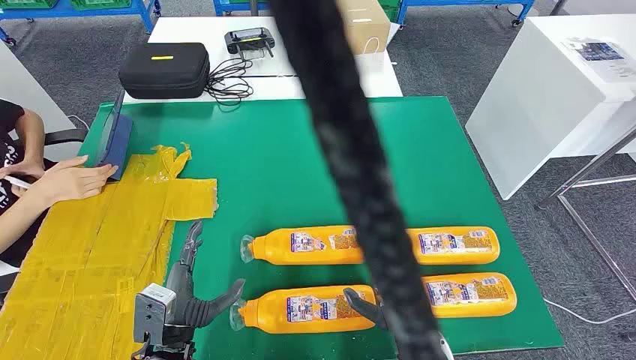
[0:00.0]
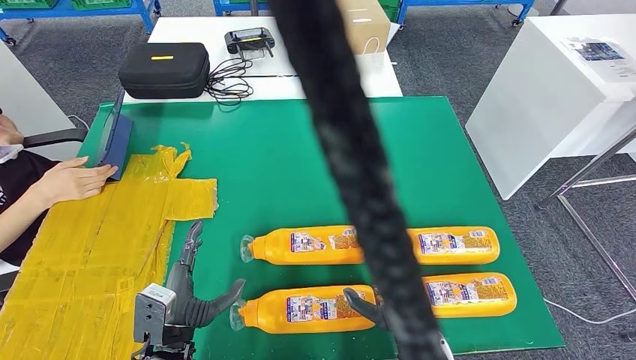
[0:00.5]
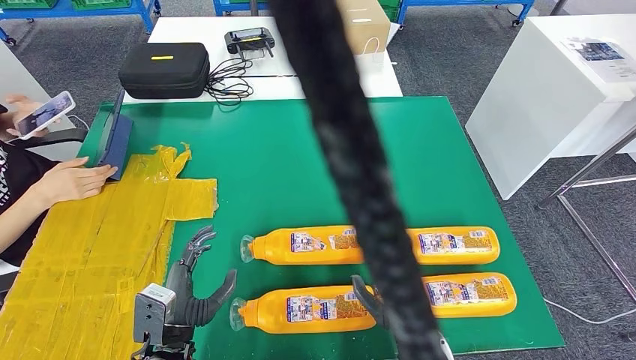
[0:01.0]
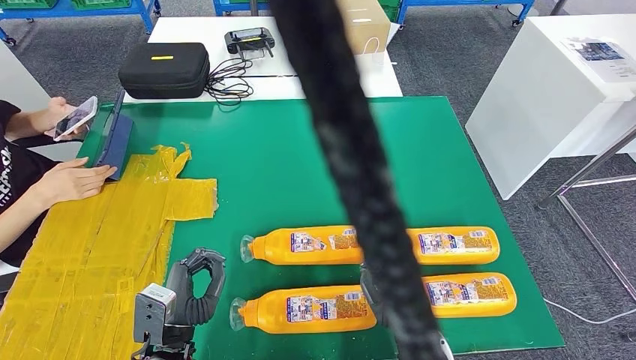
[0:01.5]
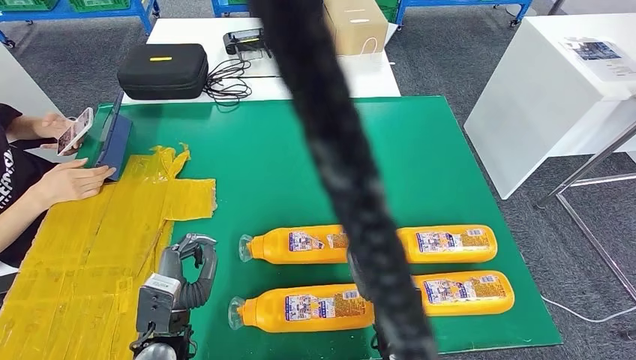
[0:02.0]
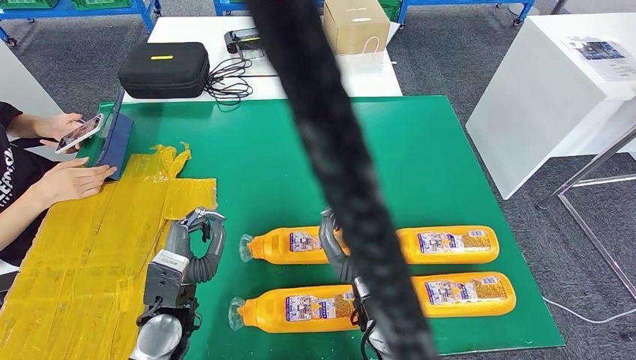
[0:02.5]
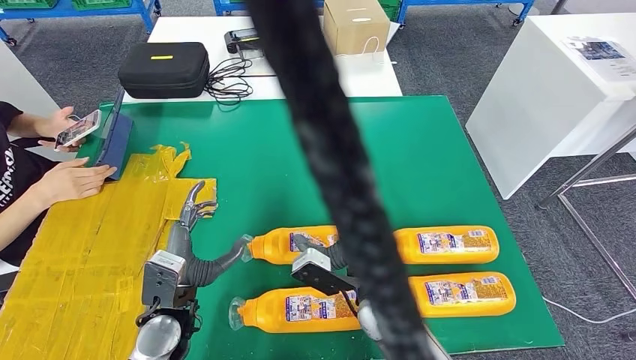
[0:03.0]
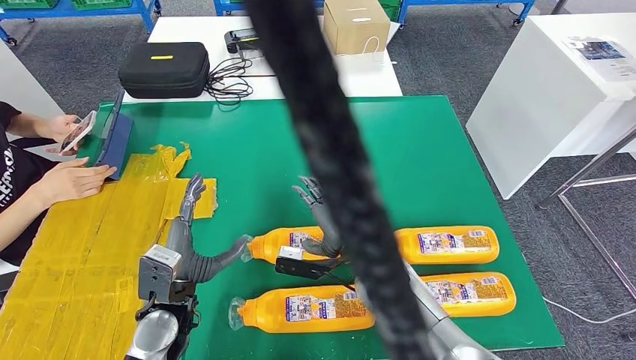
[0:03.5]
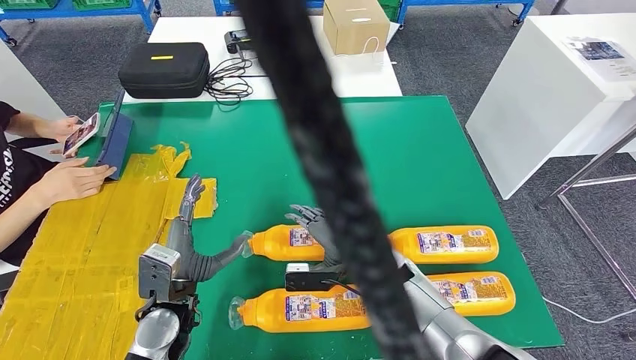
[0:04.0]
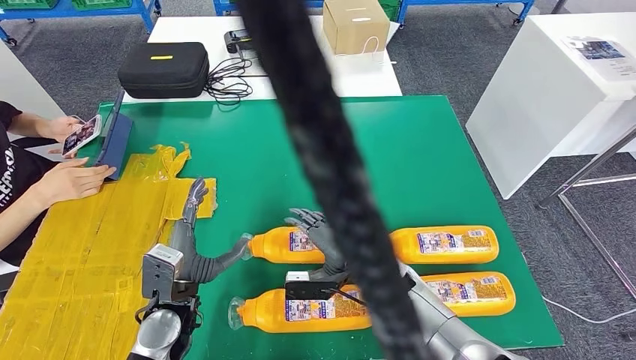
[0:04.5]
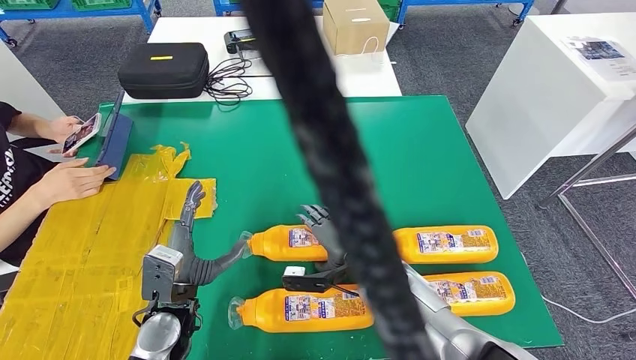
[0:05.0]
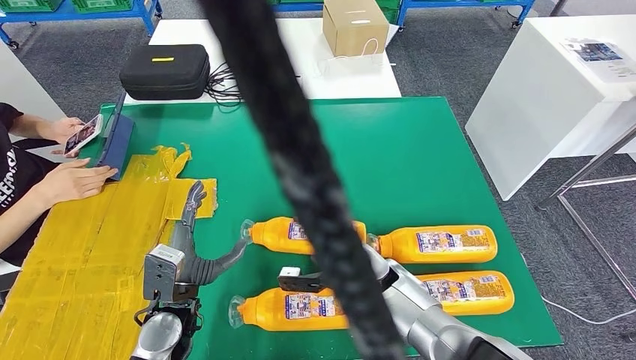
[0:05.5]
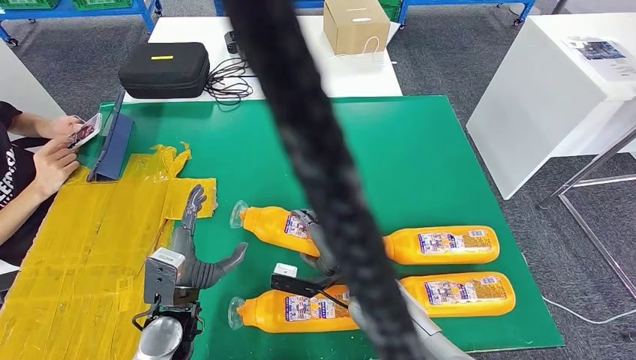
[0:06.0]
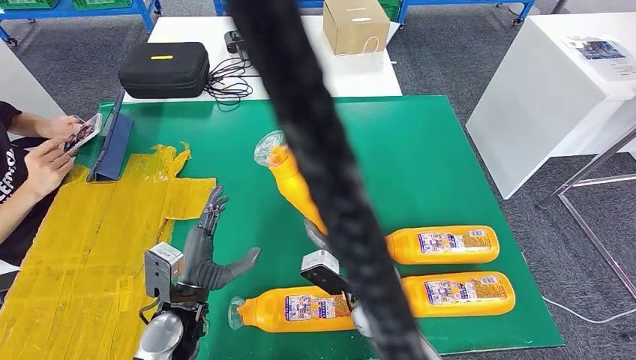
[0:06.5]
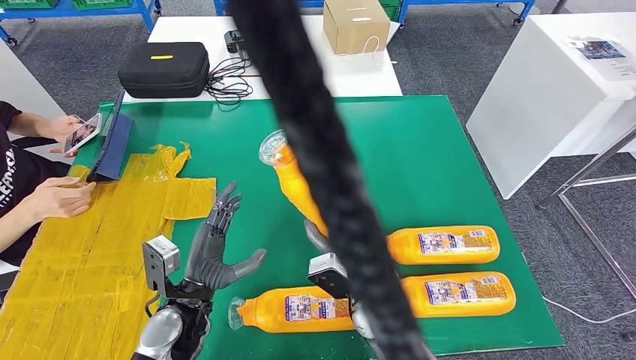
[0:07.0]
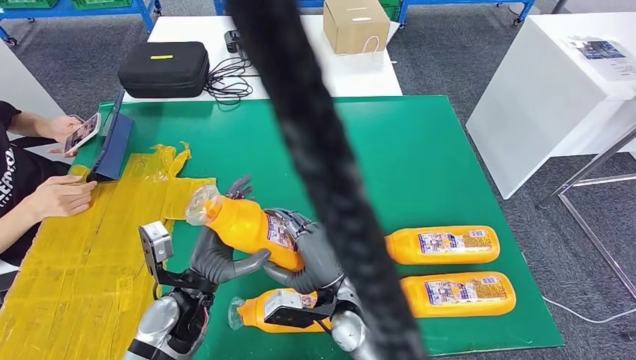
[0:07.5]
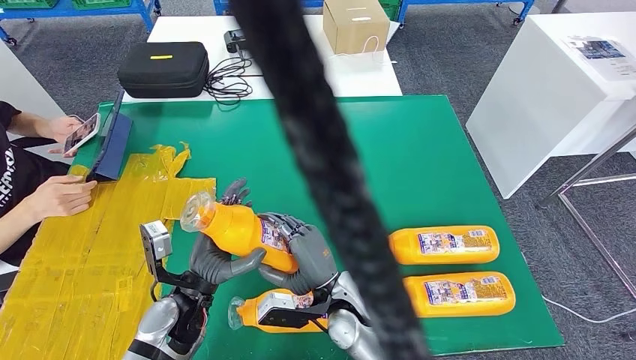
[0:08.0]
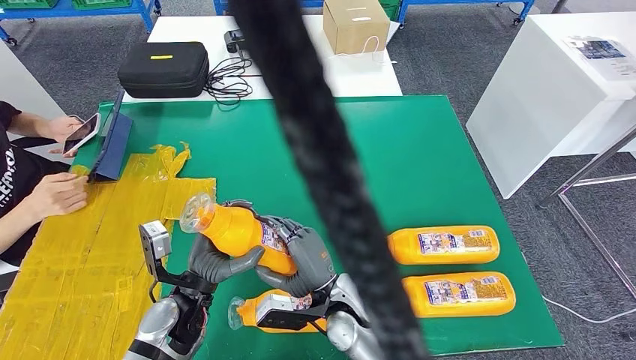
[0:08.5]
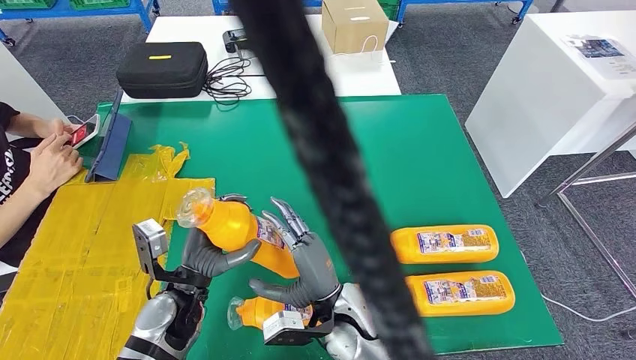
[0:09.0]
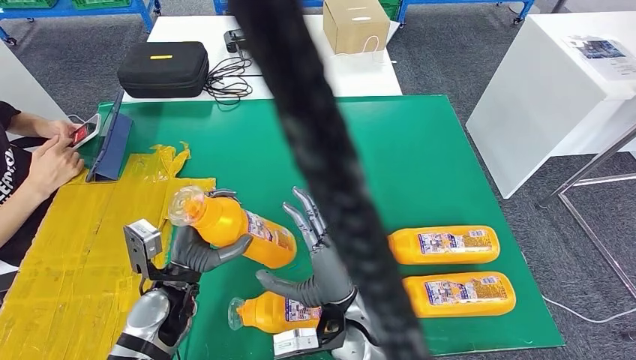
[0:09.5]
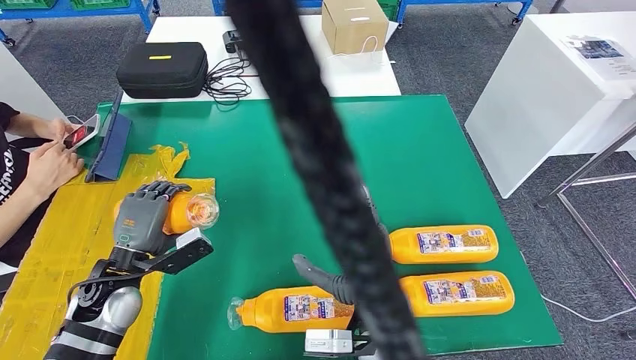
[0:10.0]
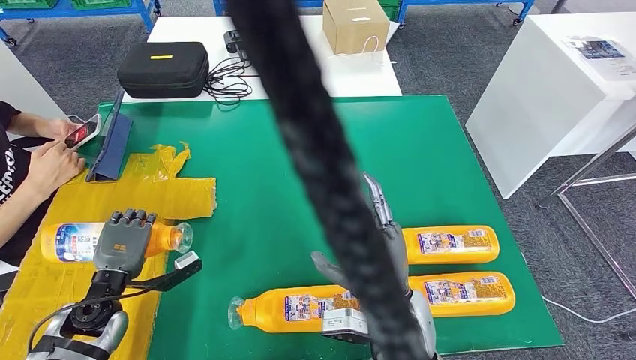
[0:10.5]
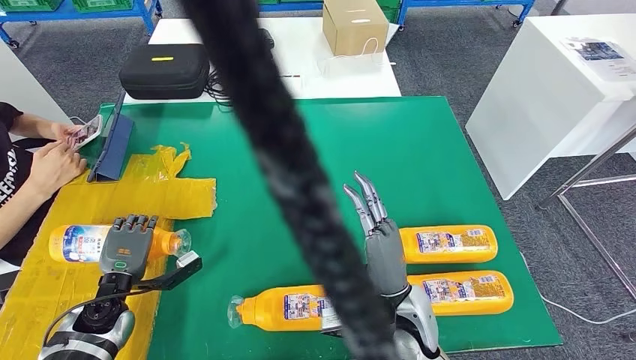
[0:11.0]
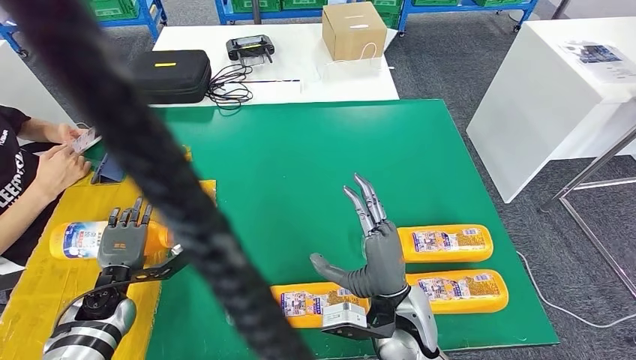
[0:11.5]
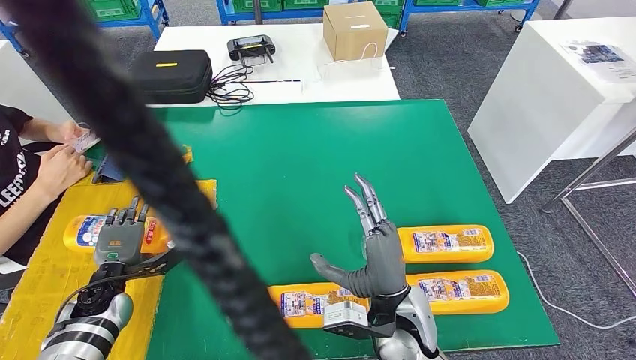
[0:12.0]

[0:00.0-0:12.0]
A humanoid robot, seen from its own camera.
Step, 0:00.0 to 0:07.0: Take the fast-moving consumer goods bottle from the table.
0:02.0 to 0:04.0: The left hand changes place by some 5 cm. The right hand is displaced forward by approximately 10 cm.
0:06.0 to 0:08.0: The right hand moves roughly 5 cm.
0:08.0 to 0:10.0: The left hand goes approximately 10 cm to the left, while the right hand travels upward by about 5 cm.

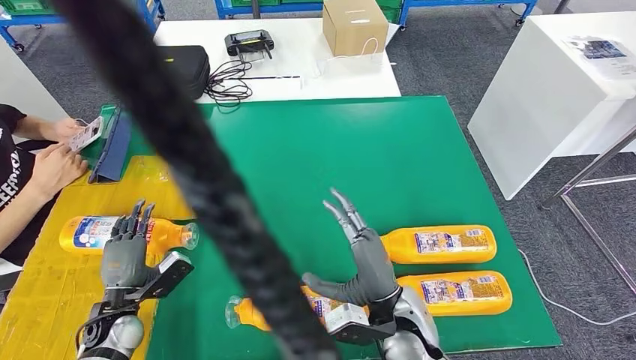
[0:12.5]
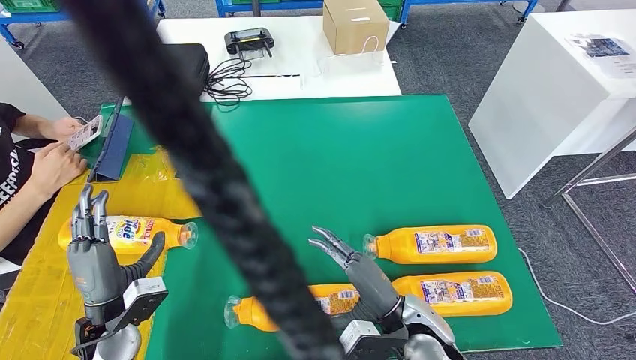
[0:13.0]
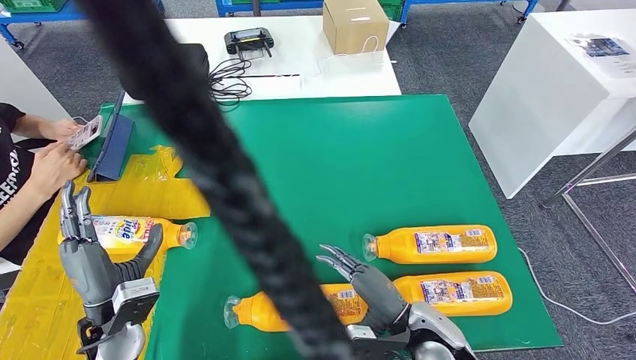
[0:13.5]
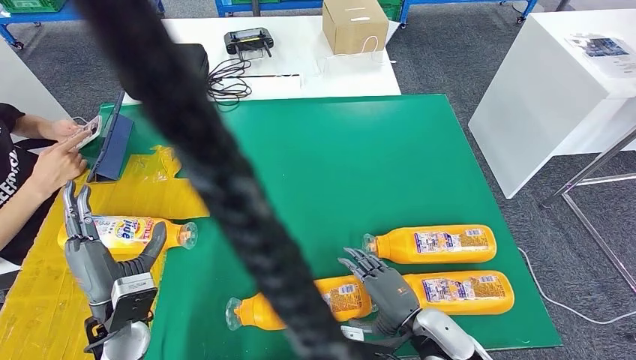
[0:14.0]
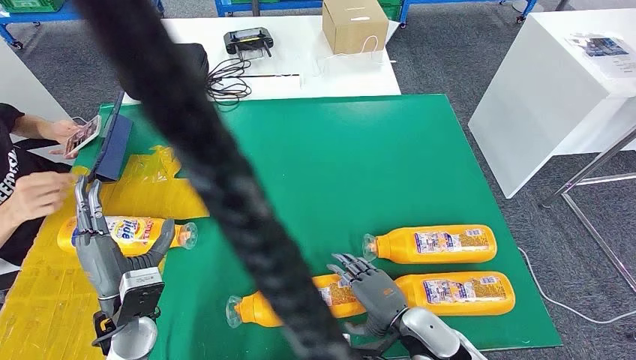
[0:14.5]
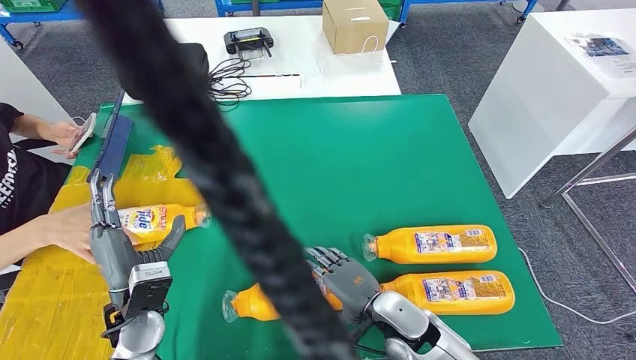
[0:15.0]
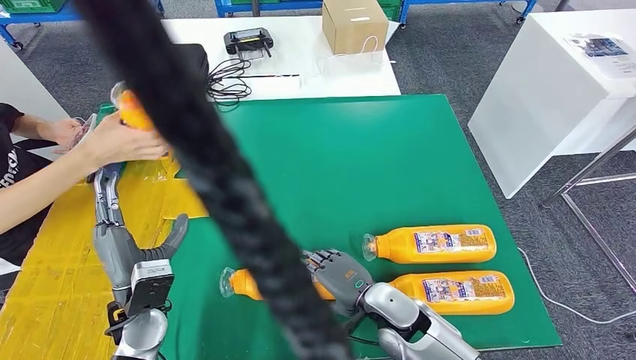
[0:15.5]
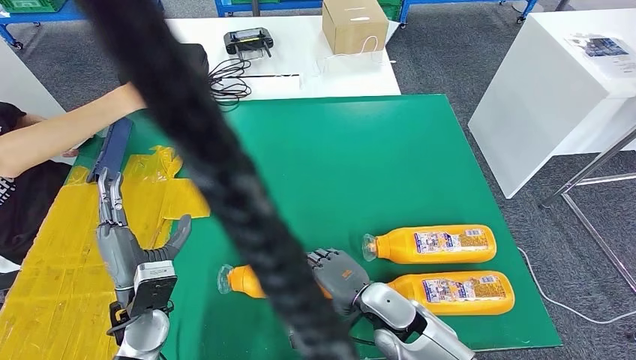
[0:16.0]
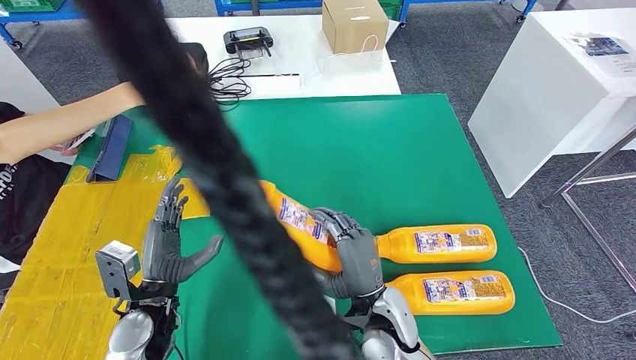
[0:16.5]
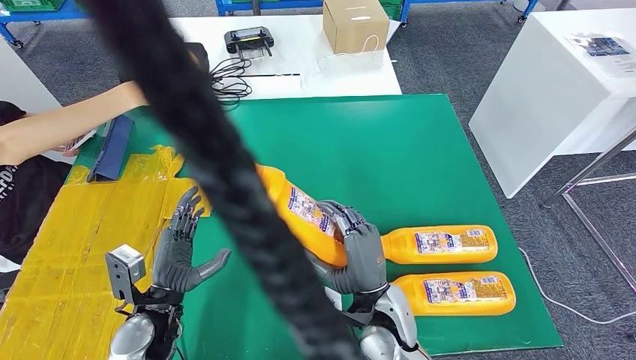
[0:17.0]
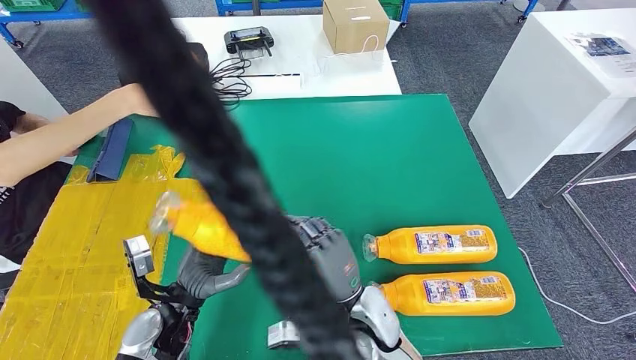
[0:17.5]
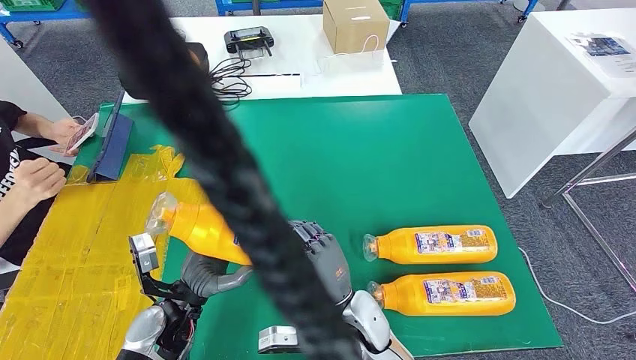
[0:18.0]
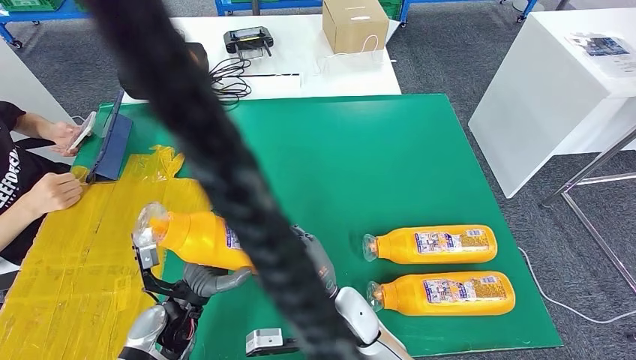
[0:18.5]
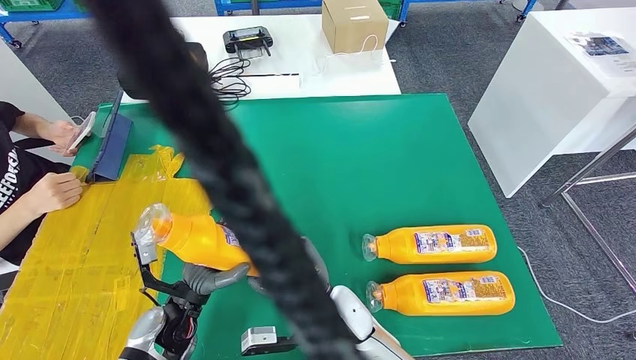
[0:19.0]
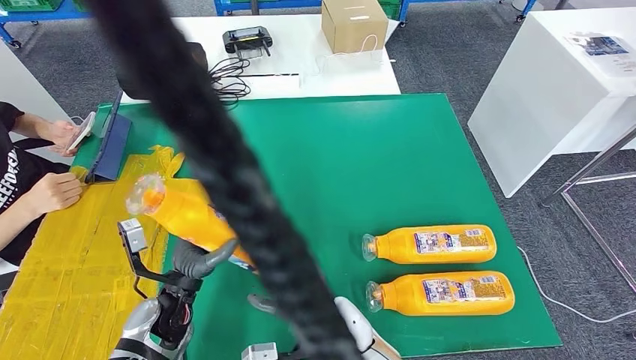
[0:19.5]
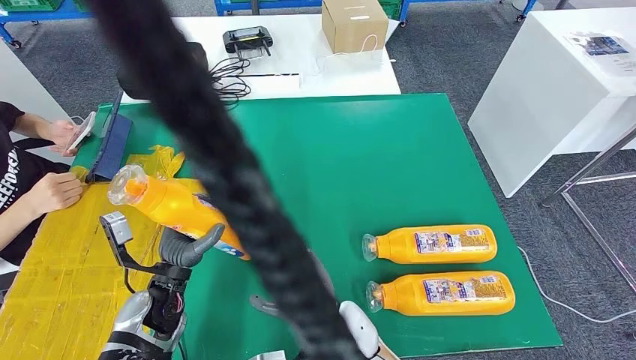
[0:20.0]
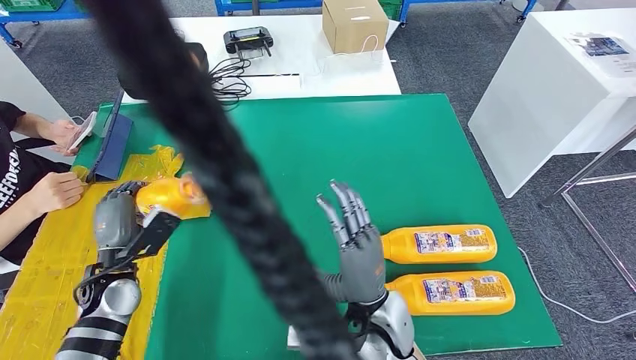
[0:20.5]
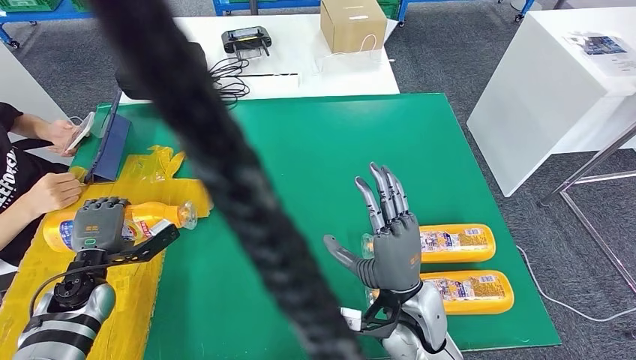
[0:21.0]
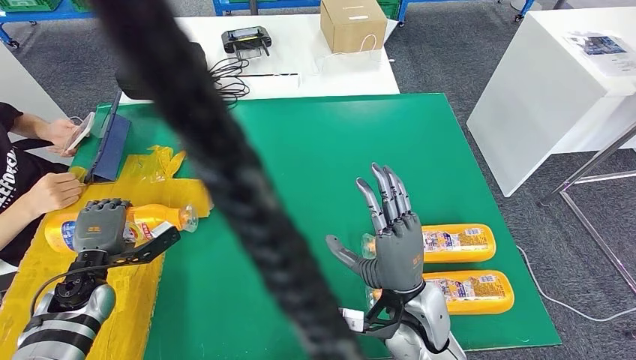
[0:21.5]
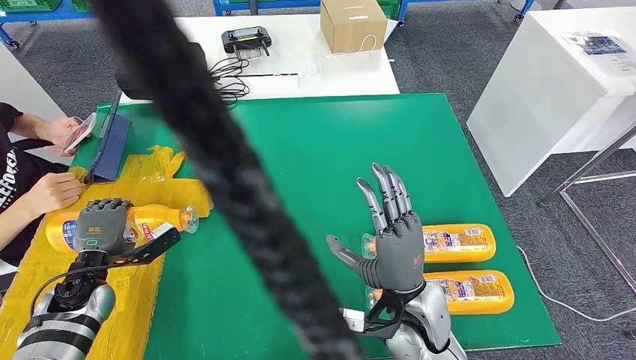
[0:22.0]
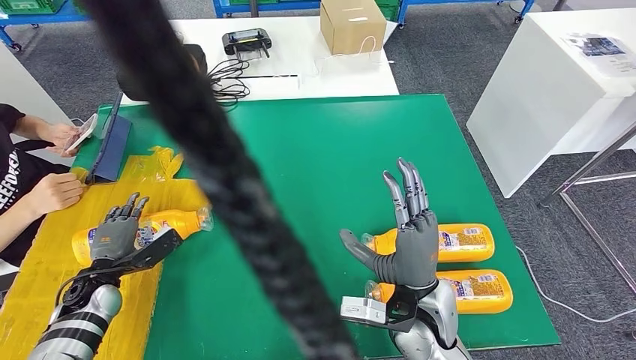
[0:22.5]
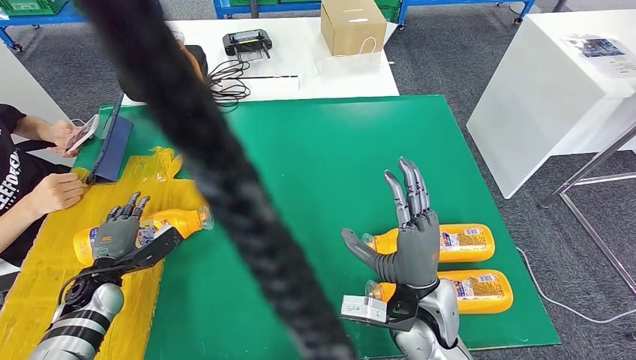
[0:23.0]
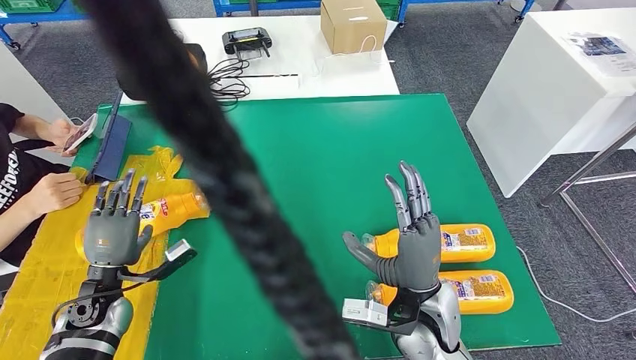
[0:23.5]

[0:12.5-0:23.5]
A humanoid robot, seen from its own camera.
Step, 0:13.0 to 0:18.5: Pick up the fast-moving consumer goods bottle from the table.
0:14.5 to 0:16.0: The right hand heads to the left, covering approximately 5 cm.
0:16.0 to 0:18.0: The right hand heads to the left, covering approximately 5 cm.
0:18.0 to 0:20.0: There are only small adjustments of the hands.
0:20.0 to 0:21.5: The left hand travels to the left by about 15 cm; the right hand moves to the right and upward, roughly 10 cm.
